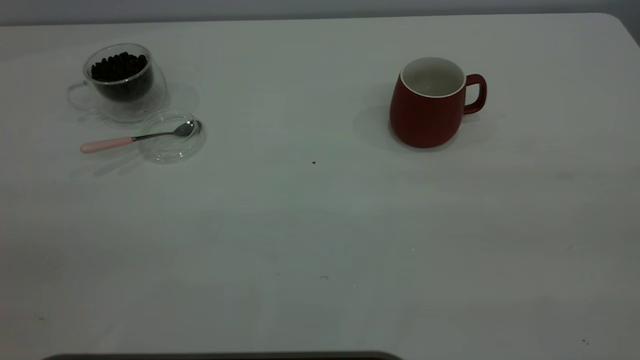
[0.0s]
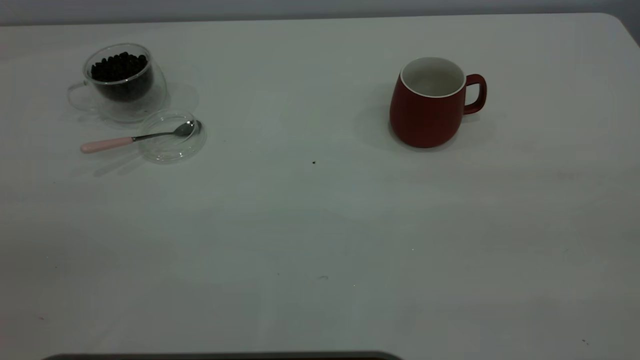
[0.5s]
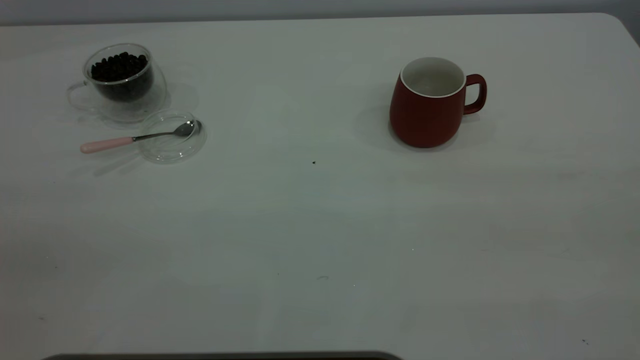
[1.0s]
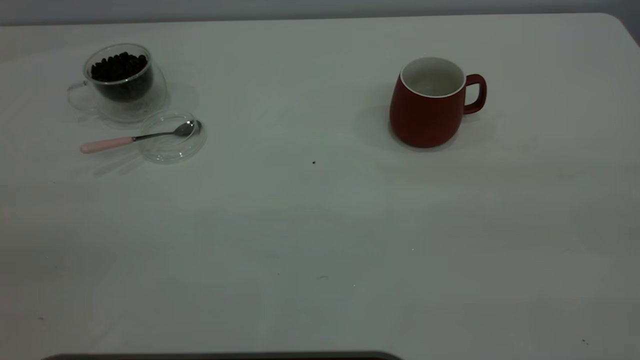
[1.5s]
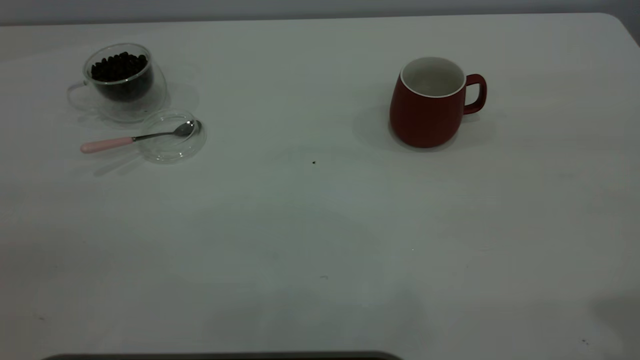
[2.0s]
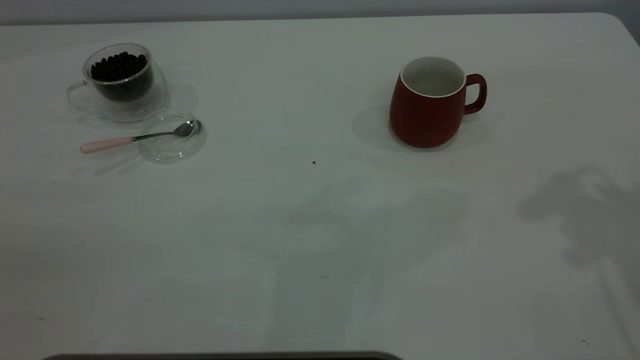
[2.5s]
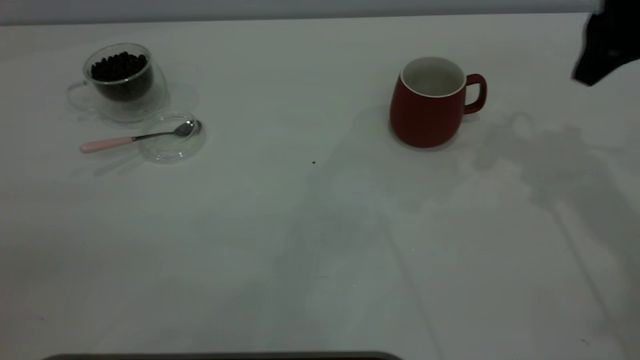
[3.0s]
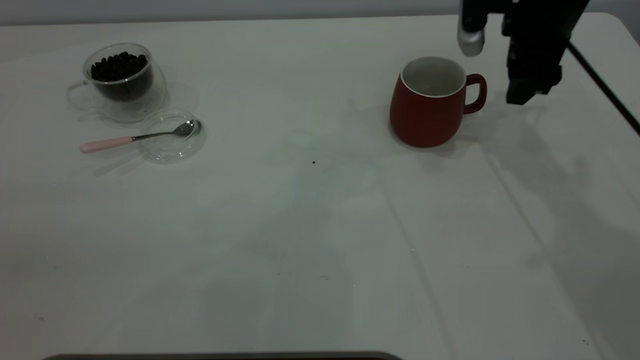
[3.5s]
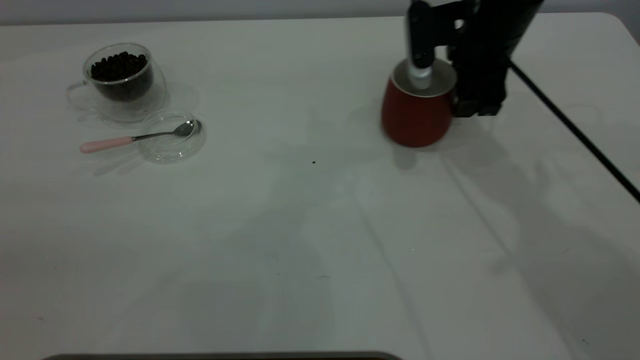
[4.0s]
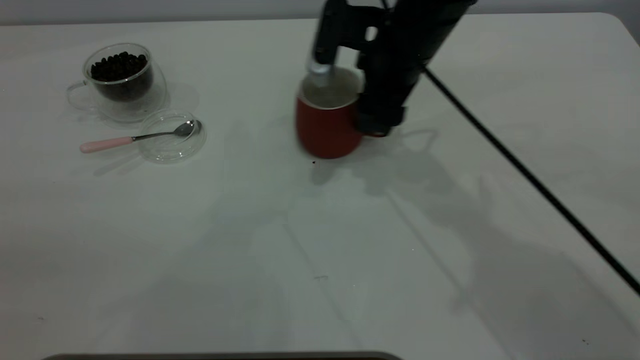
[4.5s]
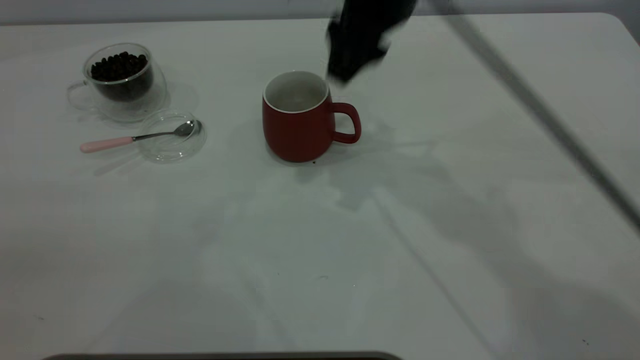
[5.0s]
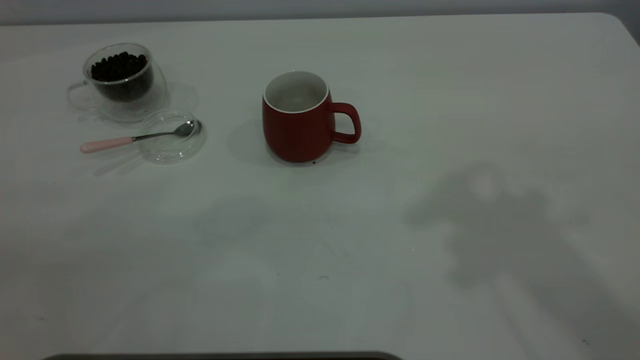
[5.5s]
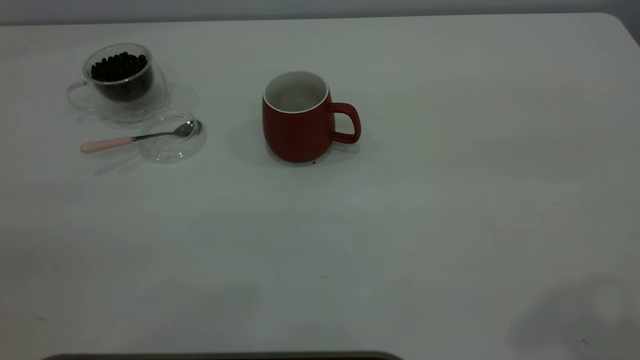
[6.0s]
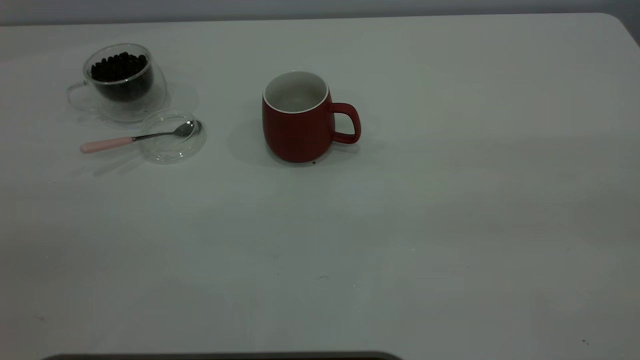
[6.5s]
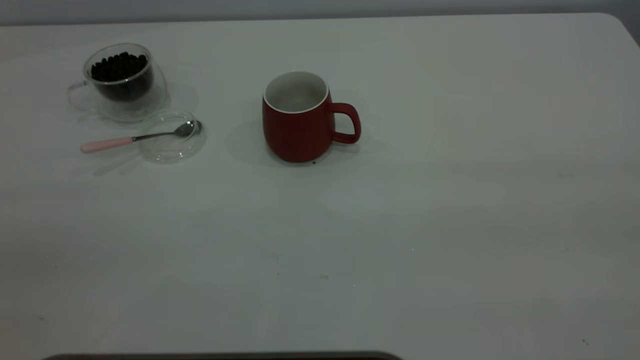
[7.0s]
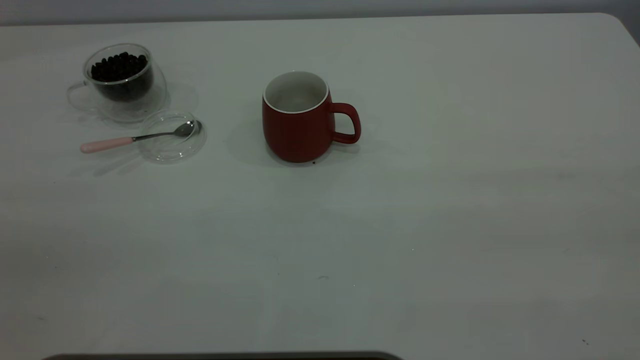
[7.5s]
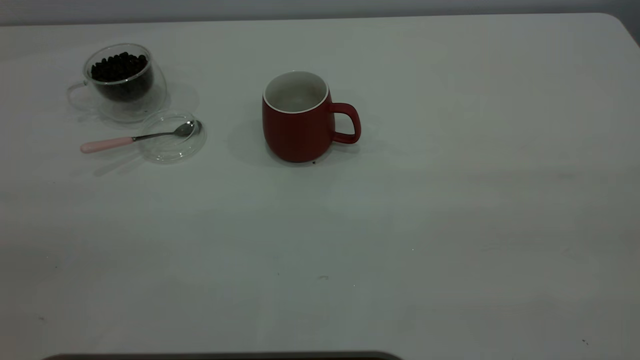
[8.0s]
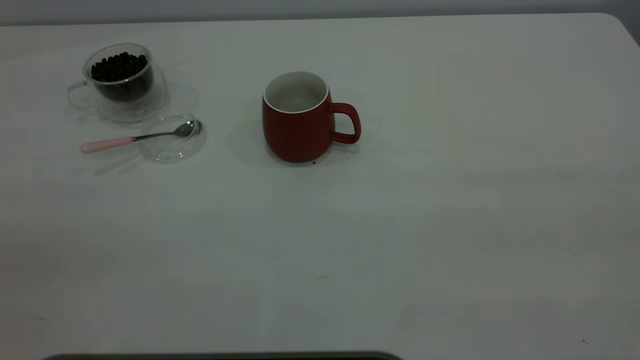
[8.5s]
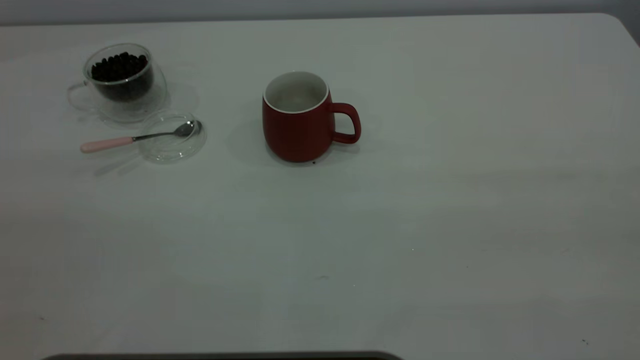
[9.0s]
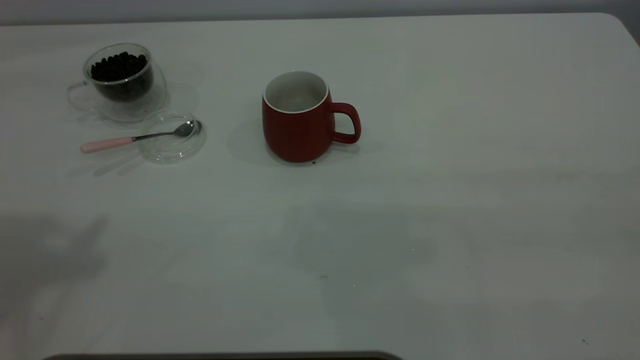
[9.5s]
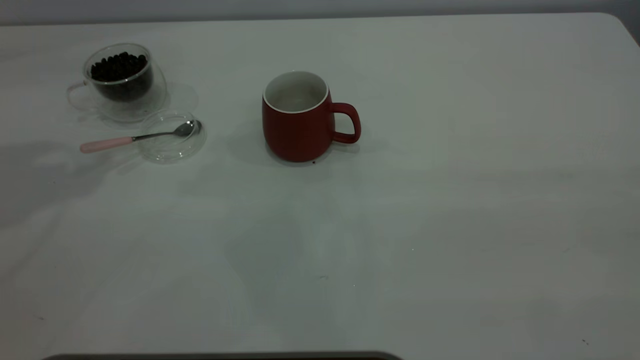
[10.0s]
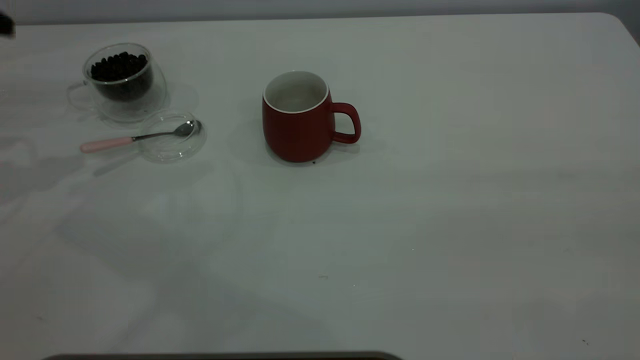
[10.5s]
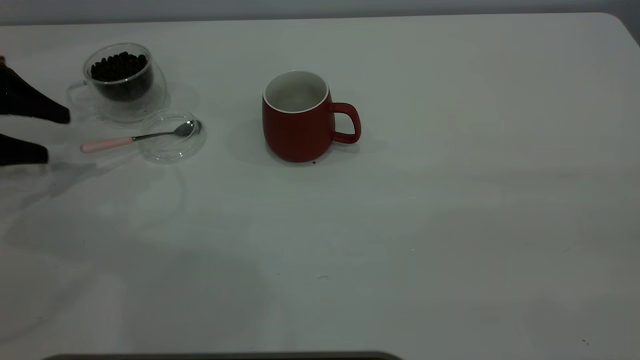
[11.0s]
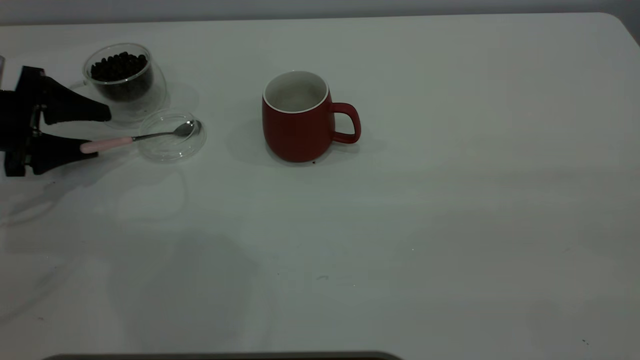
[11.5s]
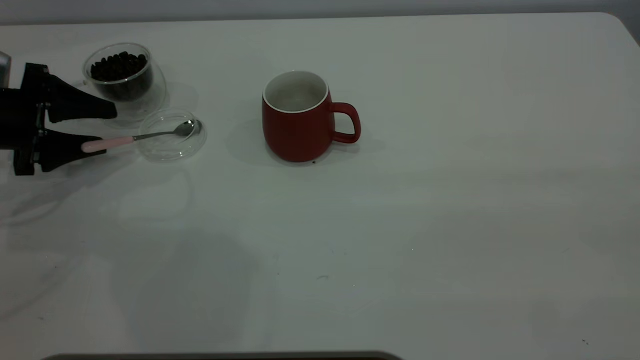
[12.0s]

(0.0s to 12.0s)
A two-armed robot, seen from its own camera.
Task of the whole recording: the right gripper place the red cup in the center of the table, the left gripper take the pink spoon from the cup lid and scoop out the coffee beans from the coffee cup and put them into the red cup, the left gripper put the spoon back into the cup lid.
Step, 0.0s - 5.0s: Move the cup to the center of view.
2.0s - 4.0s: The right gripper heads forward, downward and to the left, covering some 40 cm.
4.0s - 6.0s: The right gripper heads backward and upward, covering approximately 40 cm.
10.0s - 12.0s: The left gripper moves downward, about 25 cm.

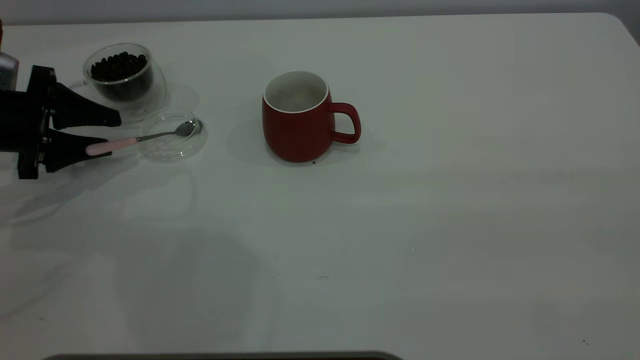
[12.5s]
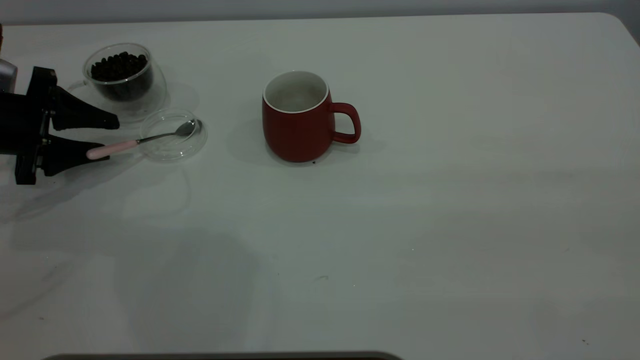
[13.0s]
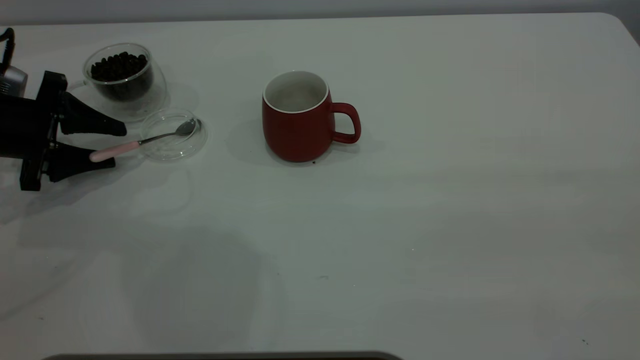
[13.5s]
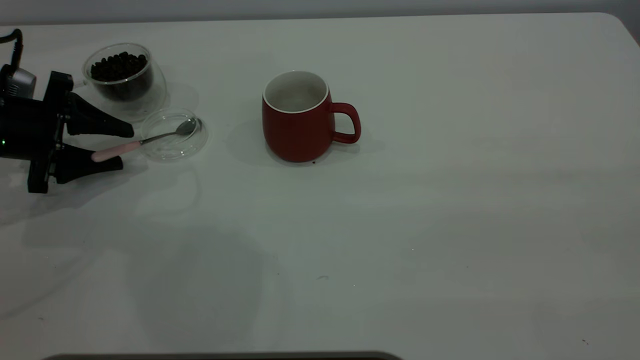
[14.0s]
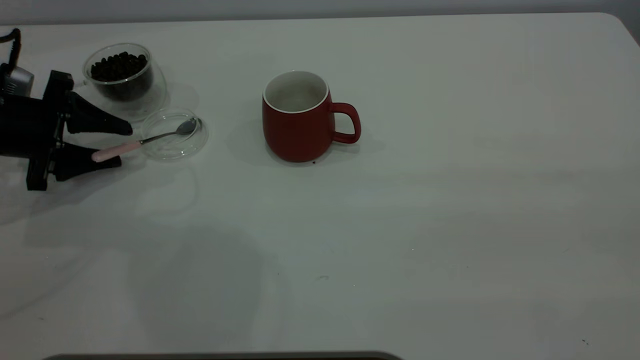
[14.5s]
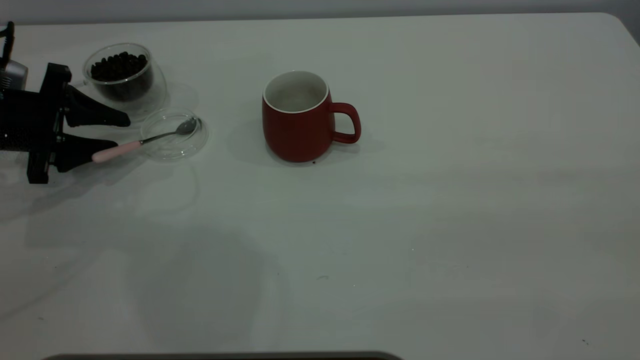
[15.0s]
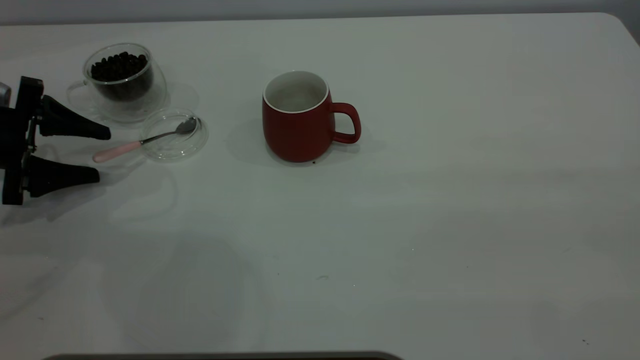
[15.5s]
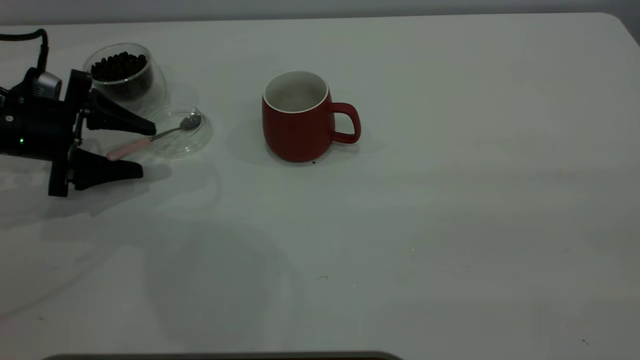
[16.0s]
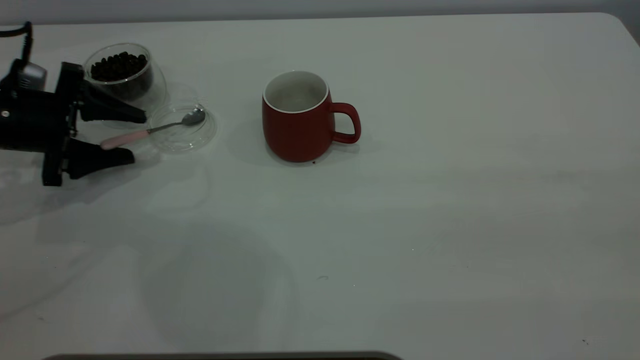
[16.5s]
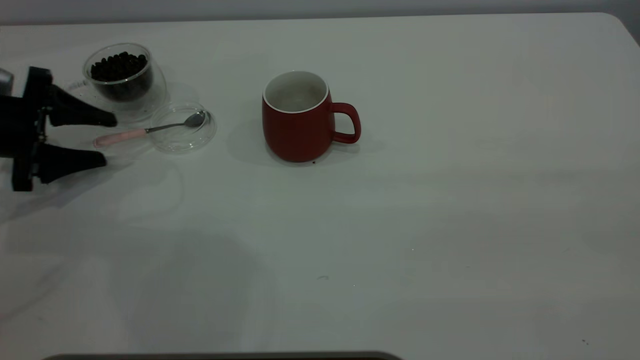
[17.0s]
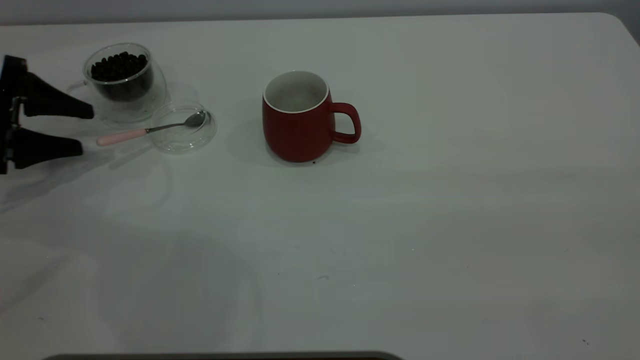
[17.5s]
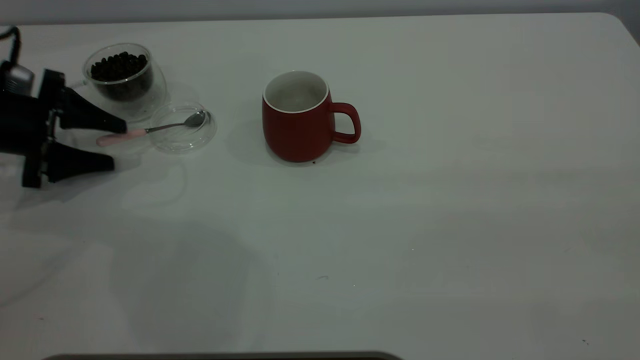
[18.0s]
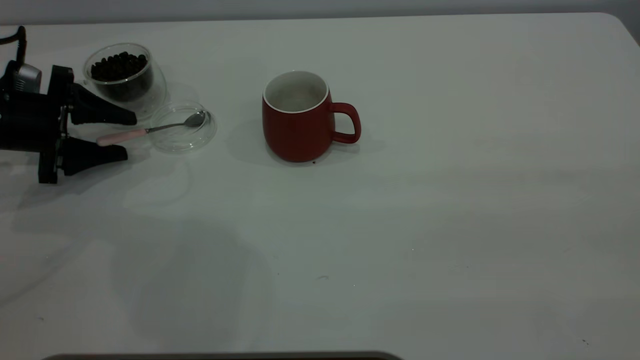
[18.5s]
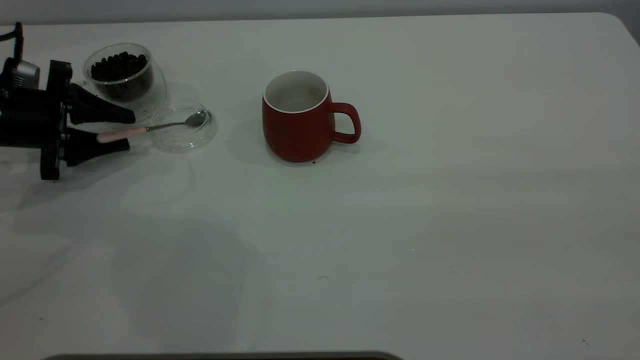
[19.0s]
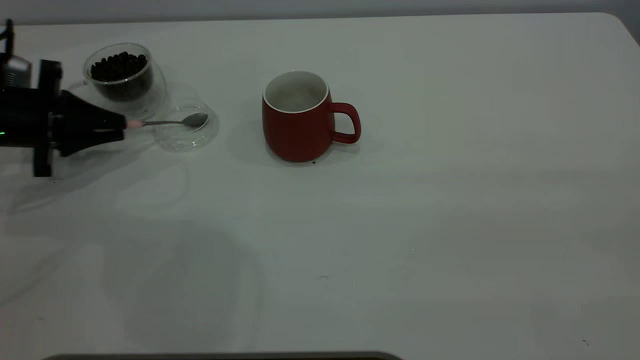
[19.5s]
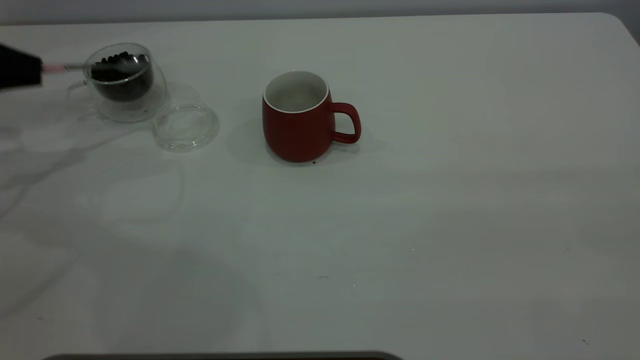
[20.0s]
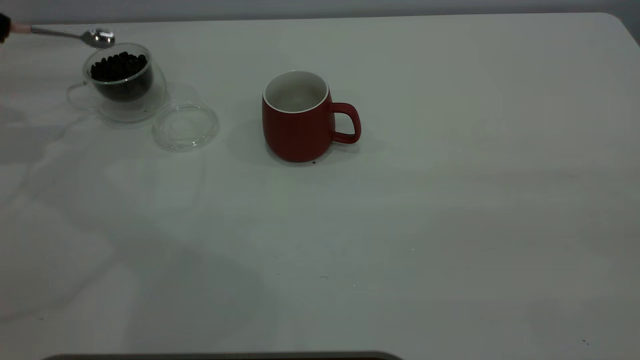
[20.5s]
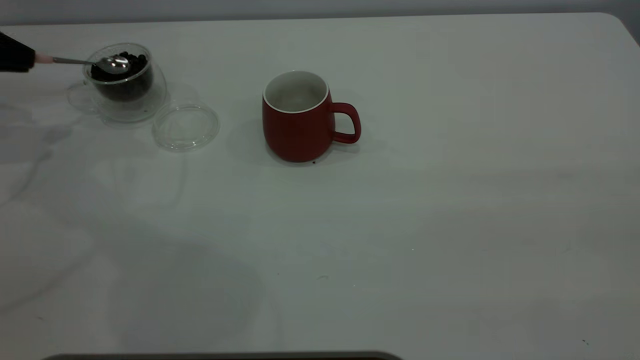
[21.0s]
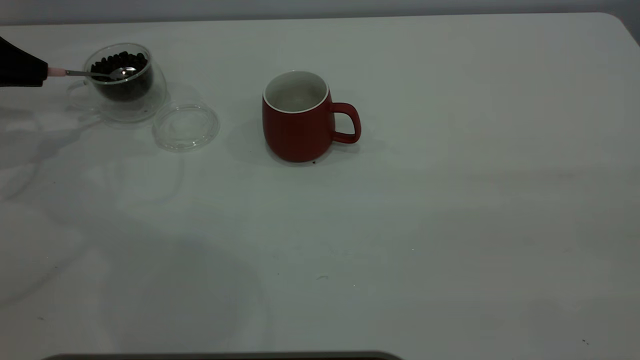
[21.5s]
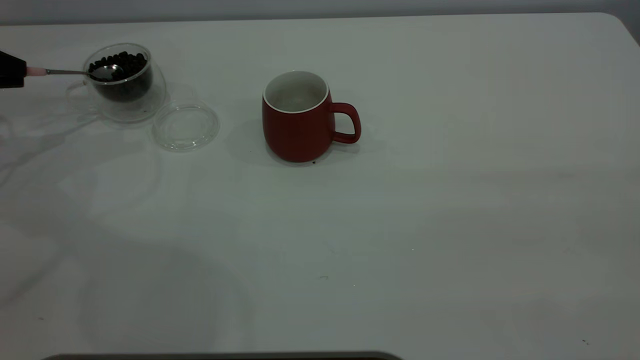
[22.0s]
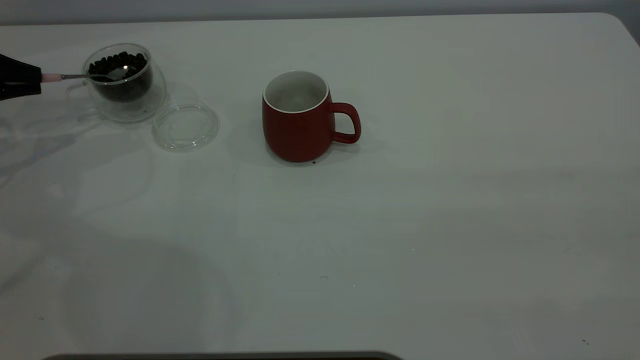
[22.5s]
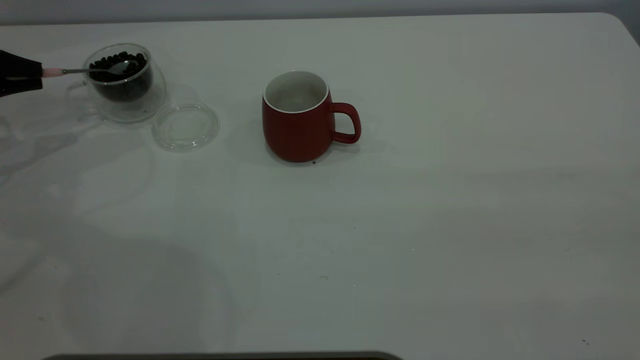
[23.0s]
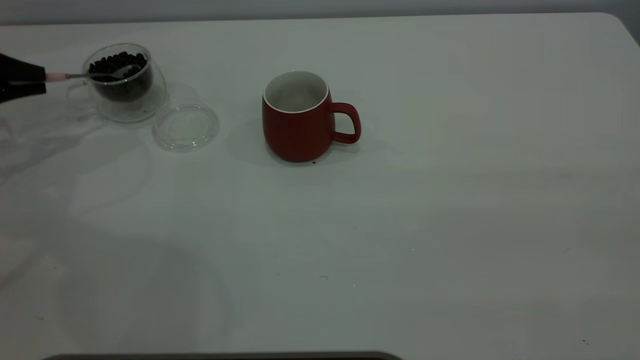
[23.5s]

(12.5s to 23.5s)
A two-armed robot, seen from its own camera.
Task of the whole recording: the right gripper place the red cup in the center of the table, the left gripper take the pink spoon from the cup lid and scoop out the coffee beans from the coffee cup and put them into the red cup, the left gripper put the spoon back into the cup lid.
Step, 12.5s - 20.0s: Pick up the spoon.
12.5s - 16.0s: The grippers make only small movements.
18.0s - 20.0s: The left gripper goes about 10 cm upward and to the left, and closes its fingers.
